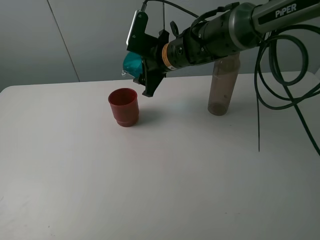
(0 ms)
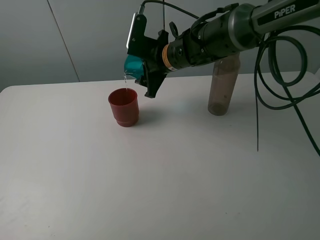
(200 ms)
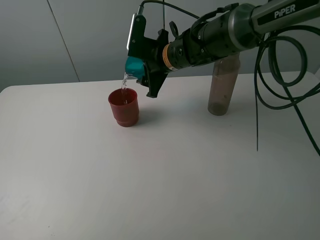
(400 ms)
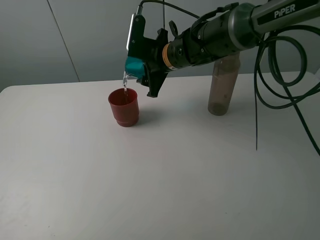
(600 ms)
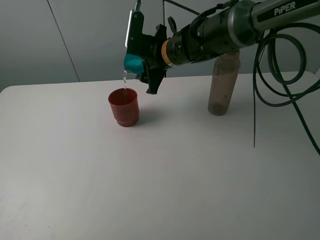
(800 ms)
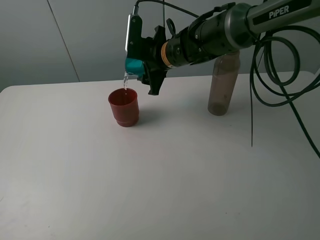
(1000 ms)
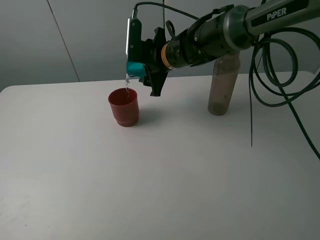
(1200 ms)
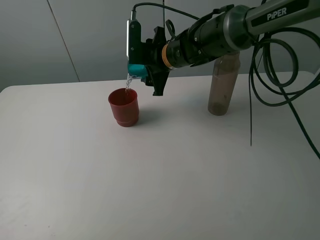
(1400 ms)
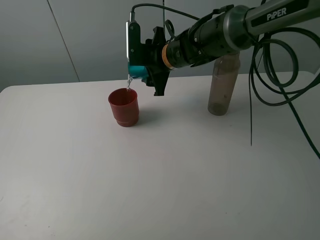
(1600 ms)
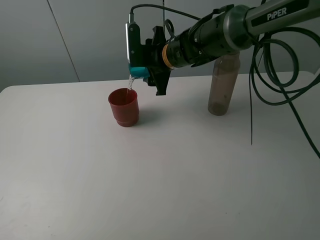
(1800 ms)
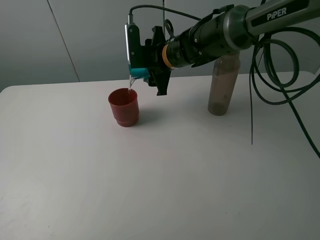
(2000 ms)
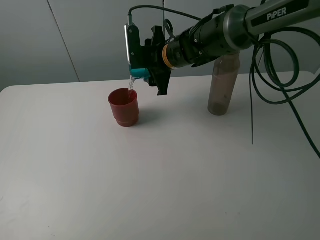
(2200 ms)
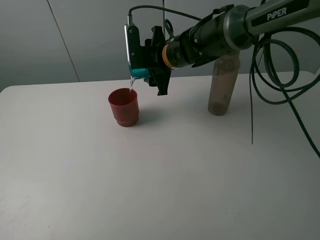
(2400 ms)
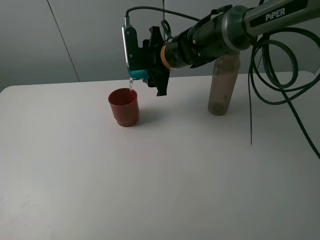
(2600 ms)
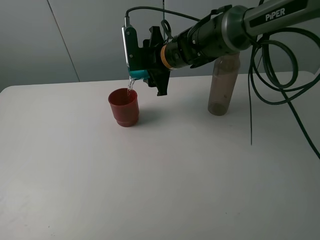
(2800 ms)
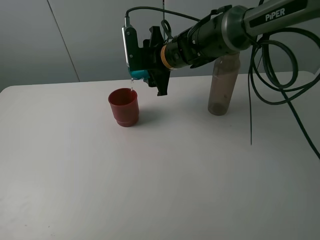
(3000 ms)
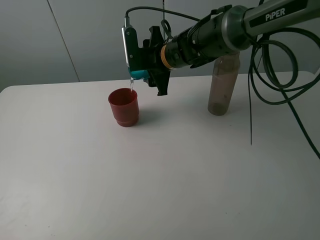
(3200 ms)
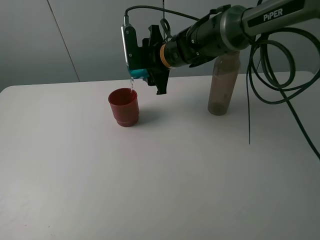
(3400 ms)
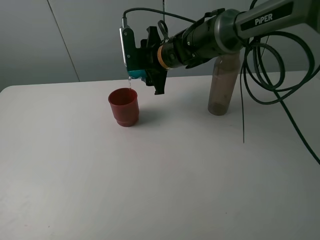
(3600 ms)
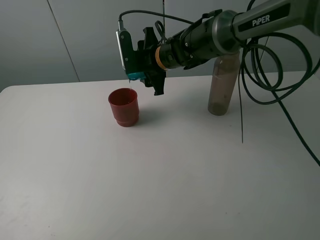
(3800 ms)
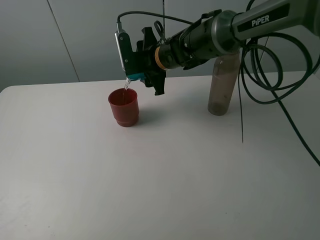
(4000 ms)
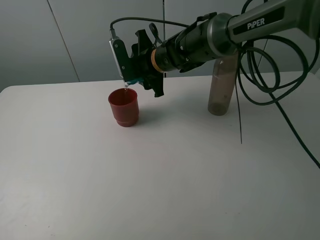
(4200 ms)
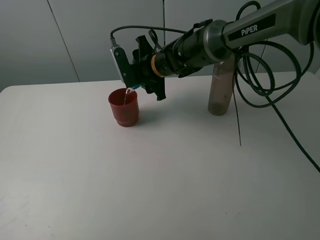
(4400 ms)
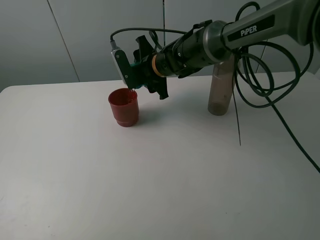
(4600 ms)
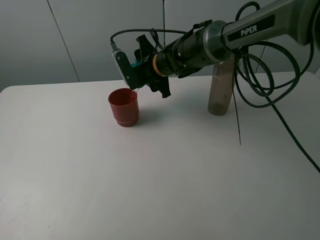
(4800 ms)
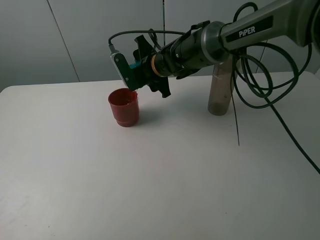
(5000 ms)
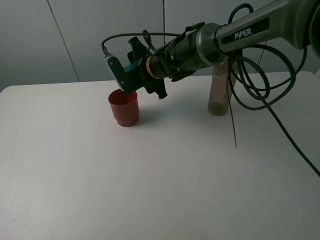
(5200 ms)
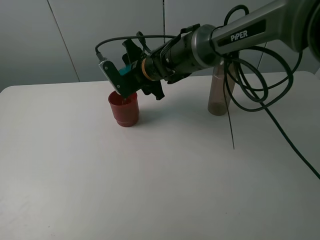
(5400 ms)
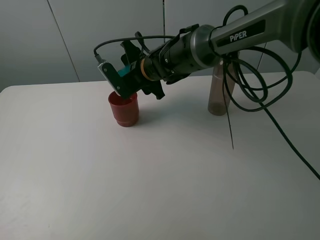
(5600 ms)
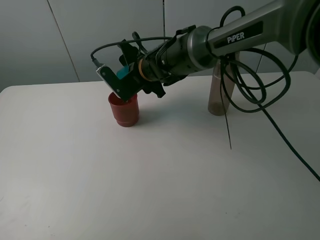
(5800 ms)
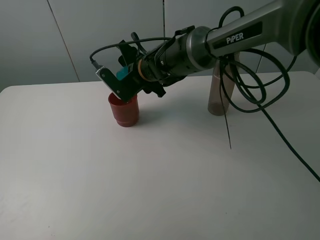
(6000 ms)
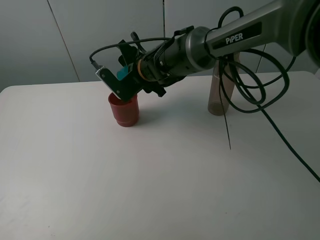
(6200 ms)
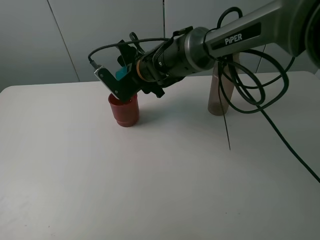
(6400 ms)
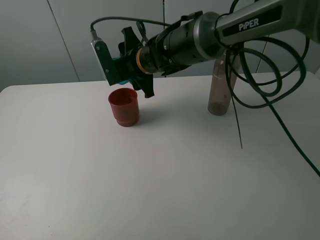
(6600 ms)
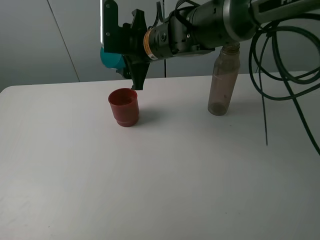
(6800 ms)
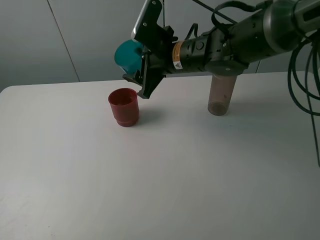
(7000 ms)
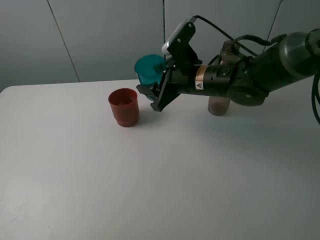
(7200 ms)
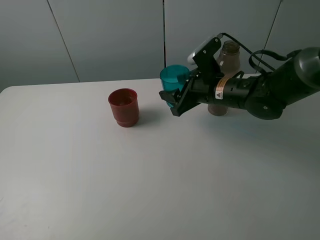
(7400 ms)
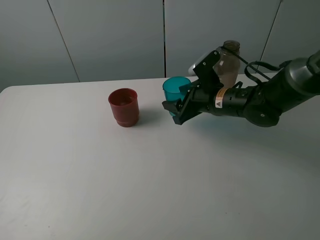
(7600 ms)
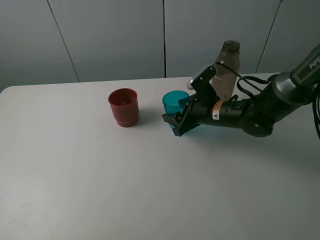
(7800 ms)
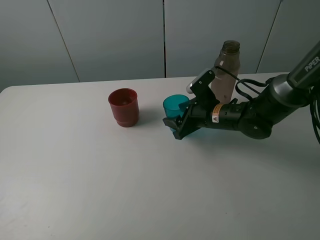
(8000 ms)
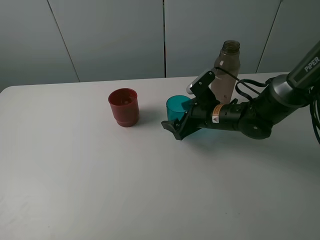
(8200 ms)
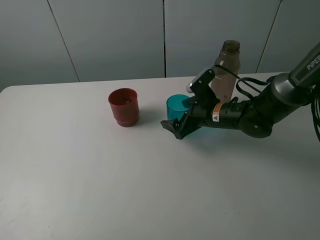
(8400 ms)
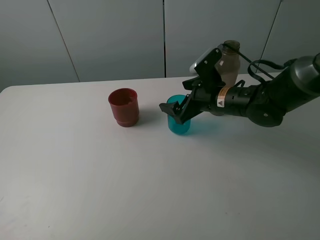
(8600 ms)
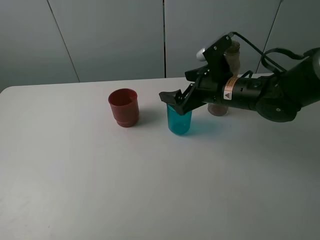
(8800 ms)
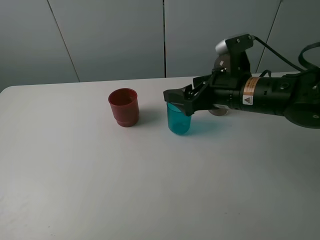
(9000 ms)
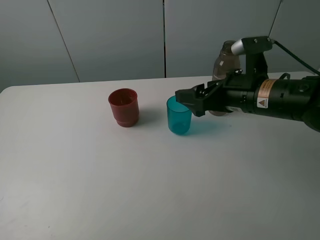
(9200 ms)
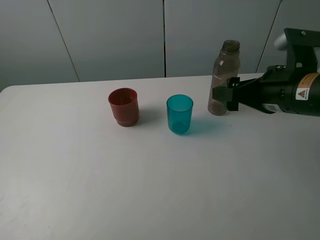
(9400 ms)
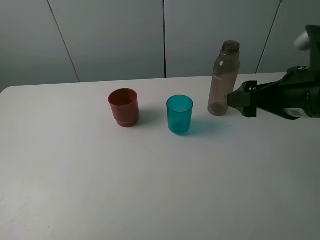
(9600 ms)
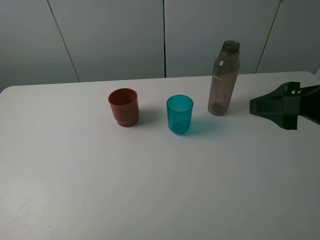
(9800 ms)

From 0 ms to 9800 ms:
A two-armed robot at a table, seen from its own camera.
Task of the whole recording: pick up the bottle and pour water into the cup, then pick up the cup containing water and pour it into another cup.
Step, from 0 ms to 6600 ms: Pour water from blue cup to red cup with the right gripper.
Step, from 6800 ms to 8400 ms: Place the blue cup with the right gripper.
From 0 ms to 1400 ms: The grippers make only small movements.
From 1400 ms to 2800 ms: There are only small adjustments of the grippers.
From 2800 ms to 4200 ms: The grippers make only small movements.
From 4200 ms to 5600 ms: The grippers make only small movements.
From 5600 ms to 7000 ms: The right gripper is displaced to the right by approximately 5 cm.
From 7000 ms to 8400 ms: The right gripper moves downward and to the right, approximately 15 cm, and opens its fingers.
From 8400 ms to 9800 ms: The right gripper goes approximately 30 cm upward, backward and to the right.

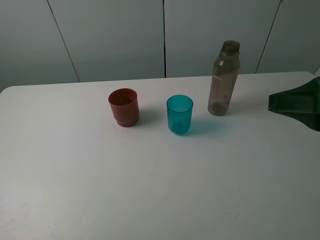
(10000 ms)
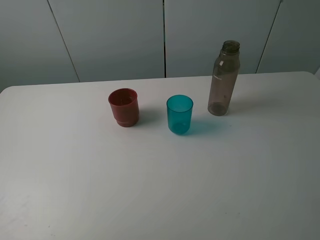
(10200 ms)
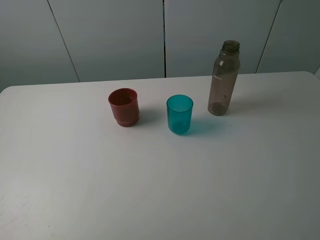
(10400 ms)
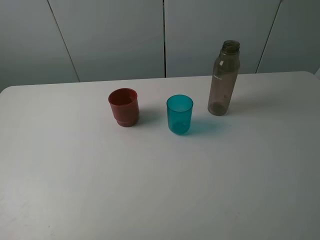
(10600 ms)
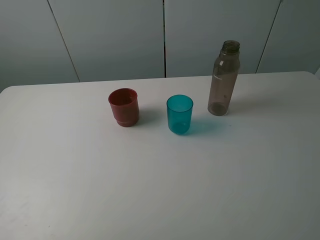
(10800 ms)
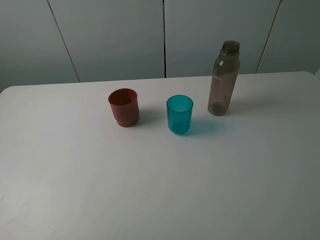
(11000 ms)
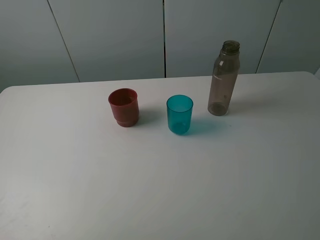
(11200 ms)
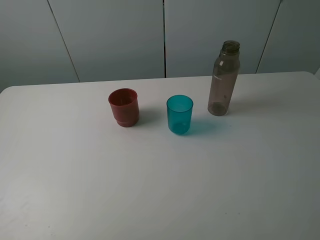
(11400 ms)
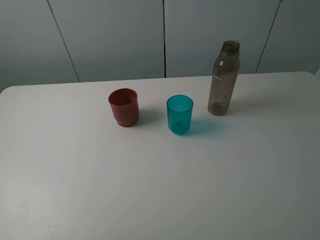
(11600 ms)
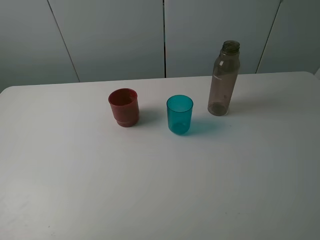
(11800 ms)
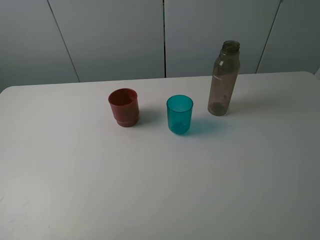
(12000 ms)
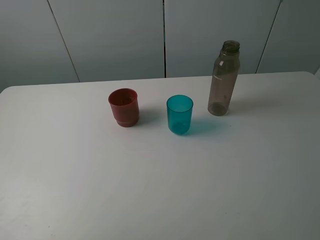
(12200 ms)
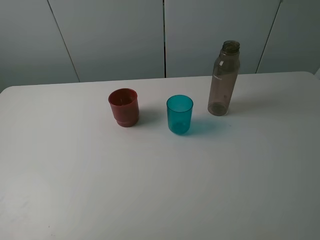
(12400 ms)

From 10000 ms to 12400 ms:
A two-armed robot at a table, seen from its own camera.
Task of the whole recording: pick up the bottle and pour water into the cup, then pick up the cup containing water and pour it into another cup.
From 10000 ms to 11200 ms: The right gripper heads backward, covering approximately 10 cm.

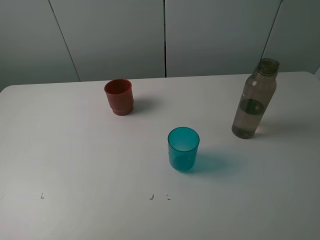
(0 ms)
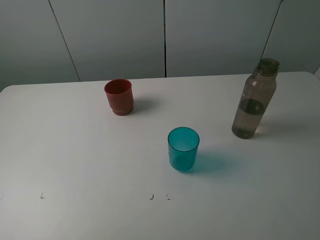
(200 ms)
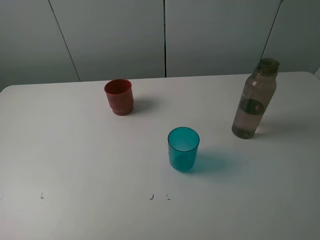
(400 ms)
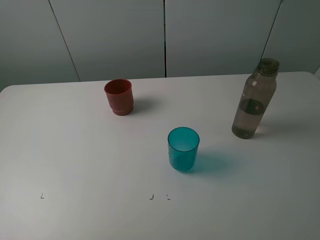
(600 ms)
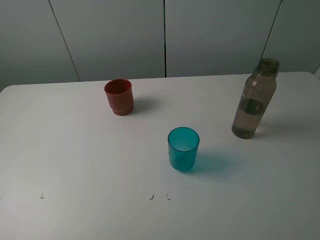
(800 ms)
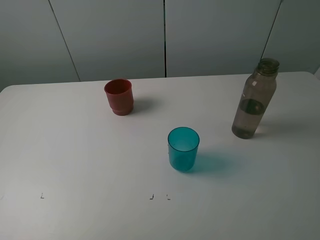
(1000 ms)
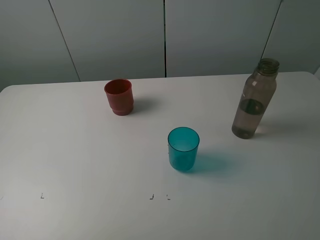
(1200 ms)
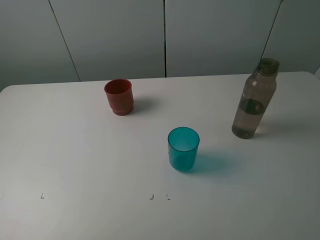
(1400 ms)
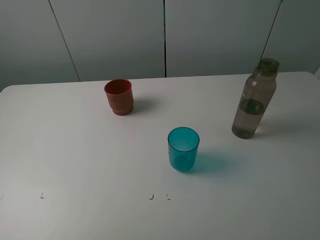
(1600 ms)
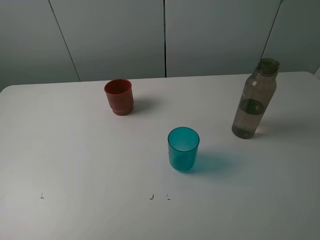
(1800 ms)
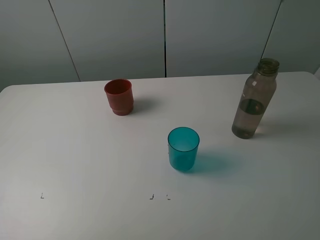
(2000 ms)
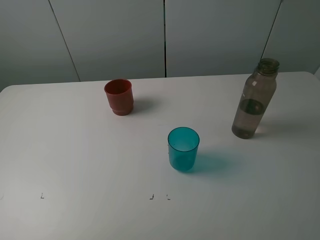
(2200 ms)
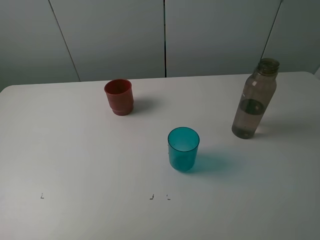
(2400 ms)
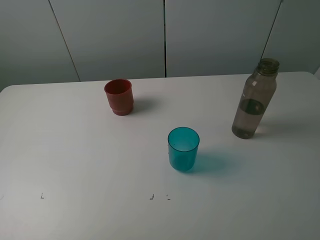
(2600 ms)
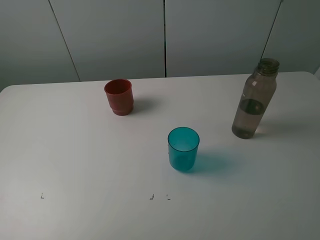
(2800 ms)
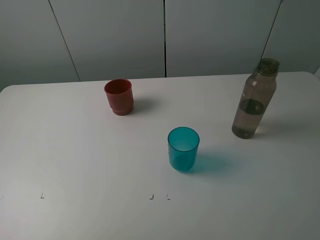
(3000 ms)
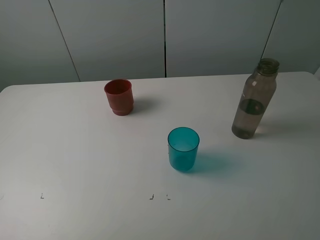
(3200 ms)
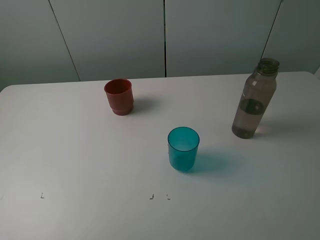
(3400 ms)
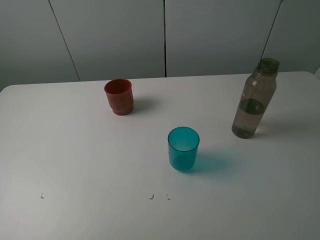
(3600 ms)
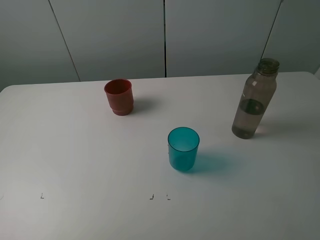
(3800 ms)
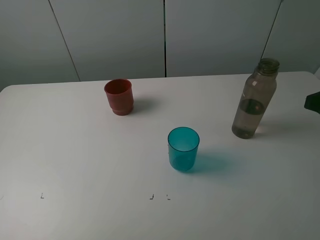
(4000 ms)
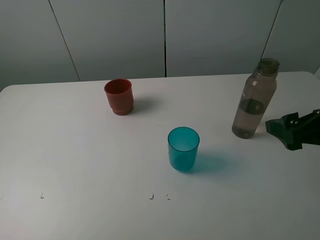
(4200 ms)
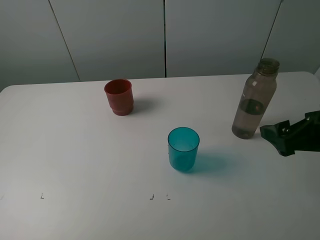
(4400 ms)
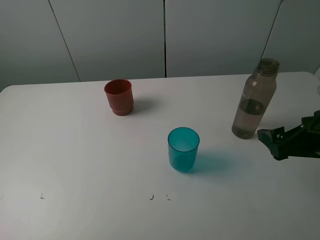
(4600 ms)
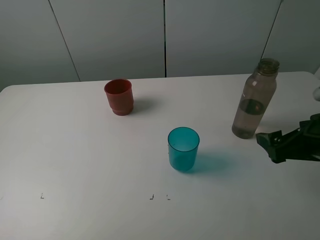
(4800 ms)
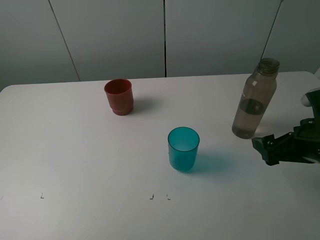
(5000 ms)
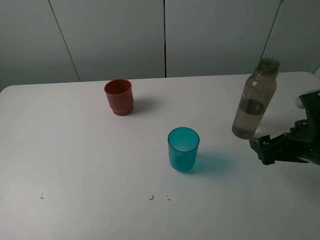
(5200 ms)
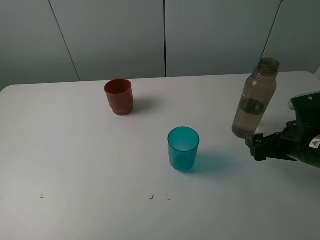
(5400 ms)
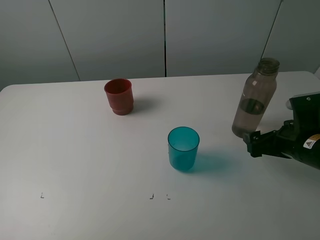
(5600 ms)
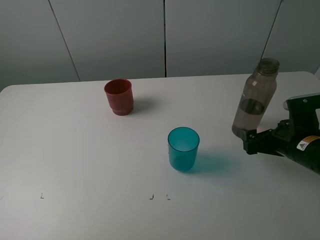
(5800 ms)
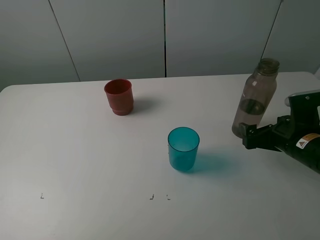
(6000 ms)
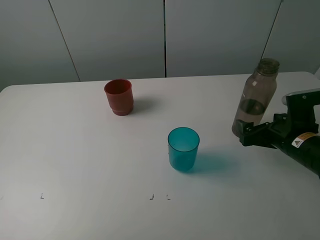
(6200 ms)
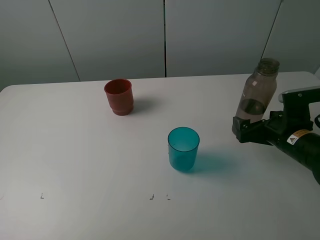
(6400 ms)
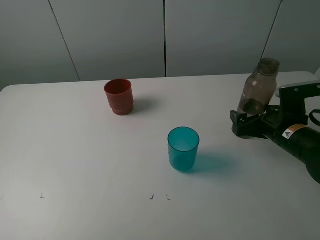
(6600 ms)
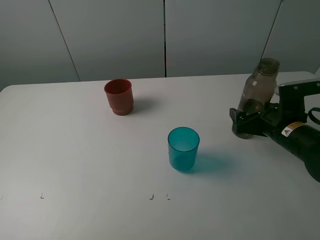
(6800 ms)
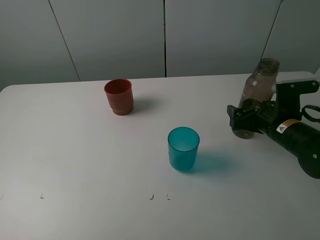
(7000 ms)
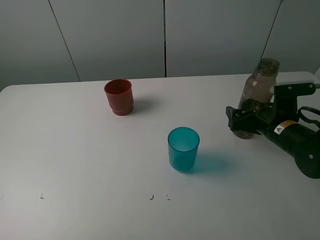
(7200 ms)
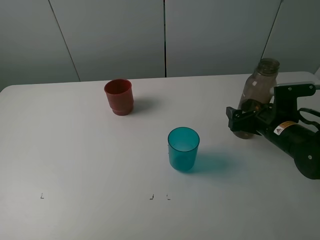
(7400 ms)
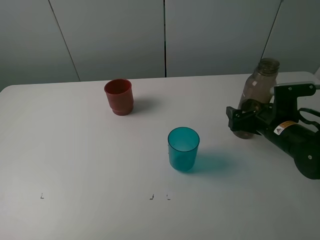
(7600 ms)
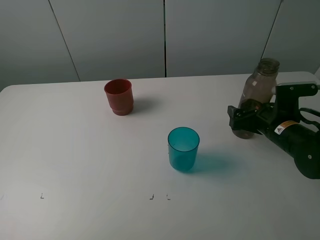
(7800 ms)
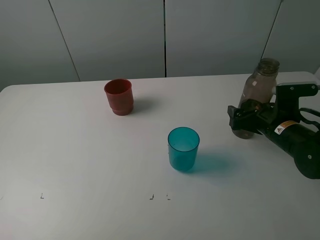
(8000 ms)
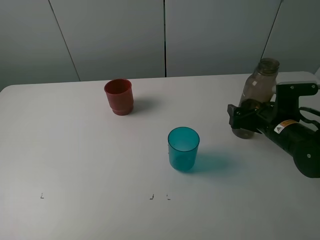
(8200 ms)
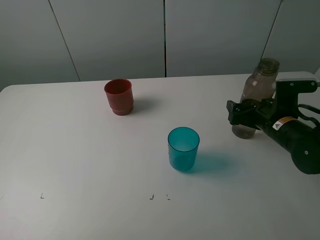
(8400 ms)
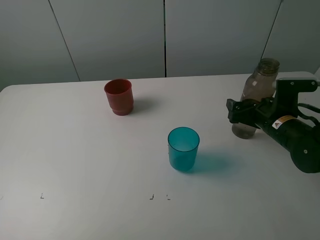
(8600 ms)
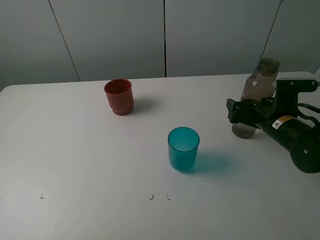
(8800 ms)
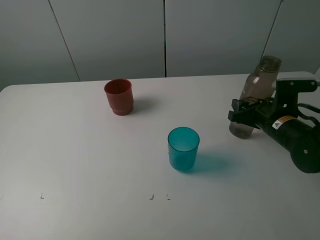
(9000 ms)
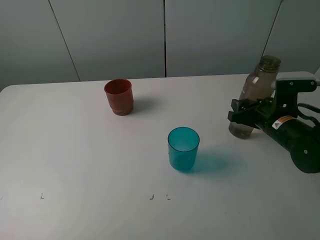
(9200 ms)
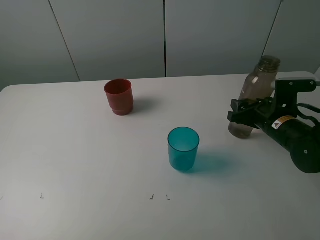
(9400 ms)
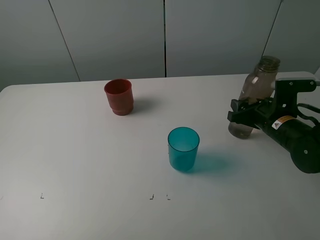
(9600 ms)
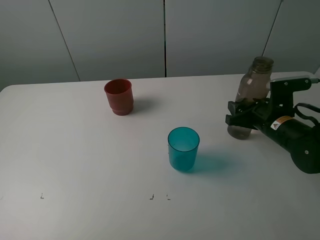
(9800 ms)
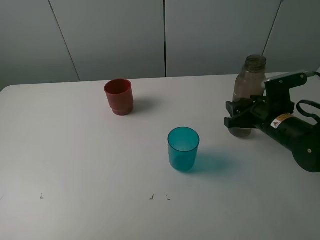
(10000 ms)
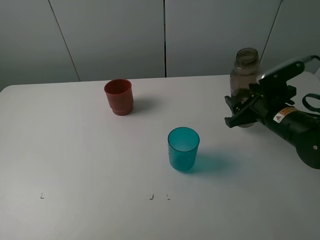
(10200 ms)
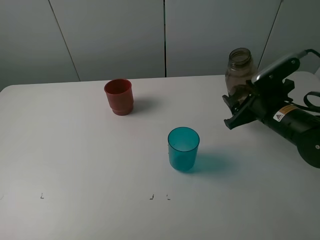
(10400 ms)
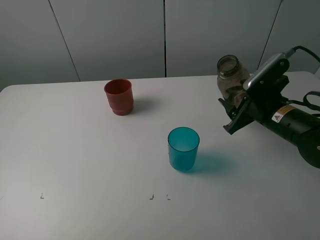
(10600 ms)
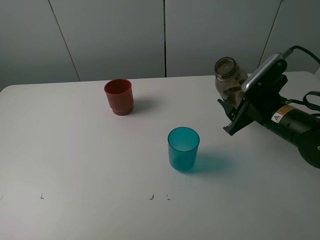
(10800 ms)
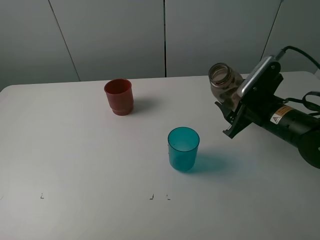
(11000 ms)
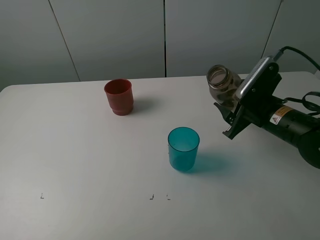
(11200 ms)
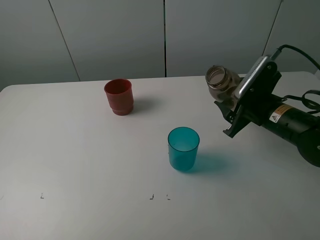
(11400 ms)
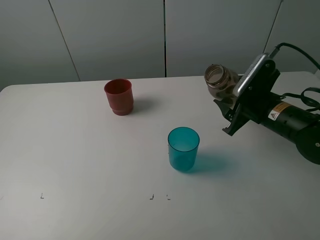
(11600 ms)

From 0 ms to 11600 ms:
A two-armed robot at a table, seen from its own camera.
Task of the whole recording: pick up the bottle and pour water into the cup, then pick up the cup containing water and pour it into another cup.
Step, from 0 ms to 9000 ms: Grasp the brown bottle with the right gripper.
From 0 ms to 2800 ms: The two grippers keep their place.
From 2800 ms to 4400 ms: The right gripper travels forward and downward by roughly 20 cm.
From 4400 ms to 5800 ms: The right gripper is displaced downward and forward by about 10 cm.
From 5800 ms to 7200 ms: The right gripper moves forward, about 5 cm.
From 7200 ms to 8800 ms: Both grippers stay about where they are.
From 8800 ms to 10200 ms: The right gripper closes up.
